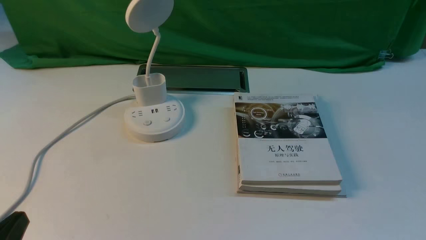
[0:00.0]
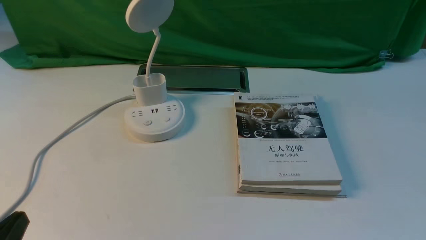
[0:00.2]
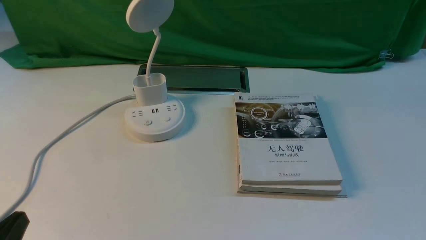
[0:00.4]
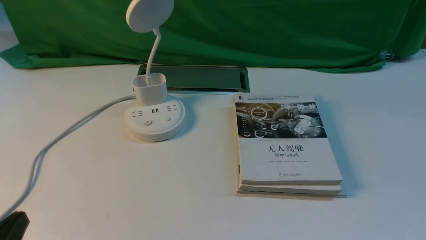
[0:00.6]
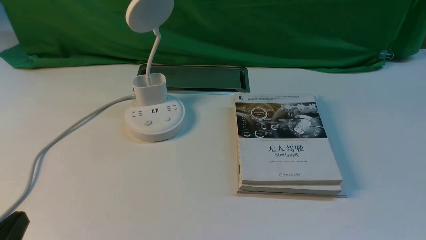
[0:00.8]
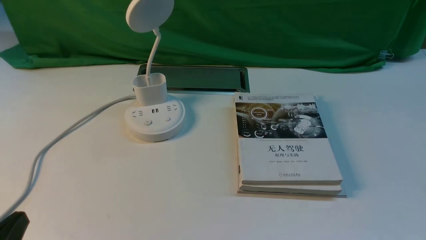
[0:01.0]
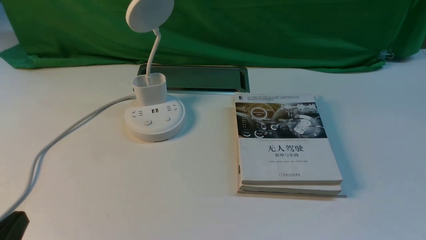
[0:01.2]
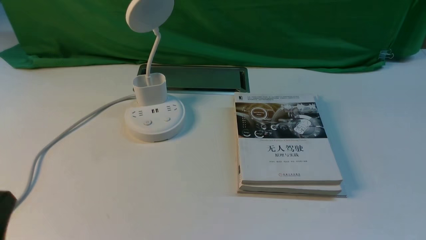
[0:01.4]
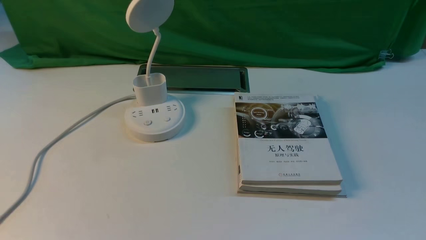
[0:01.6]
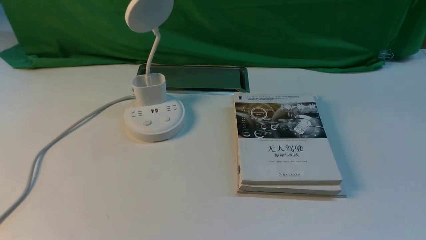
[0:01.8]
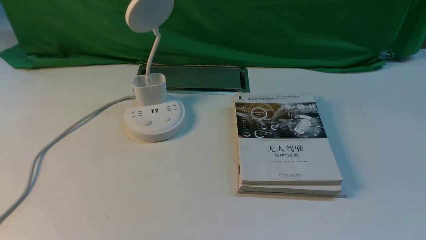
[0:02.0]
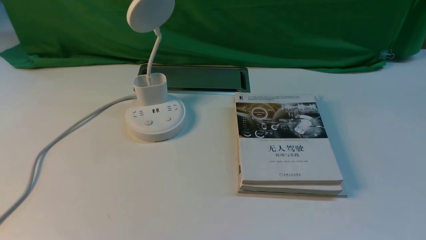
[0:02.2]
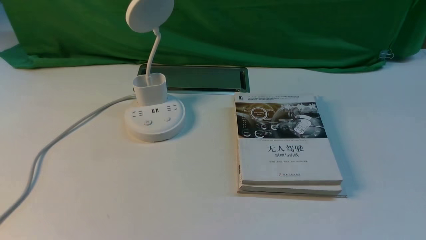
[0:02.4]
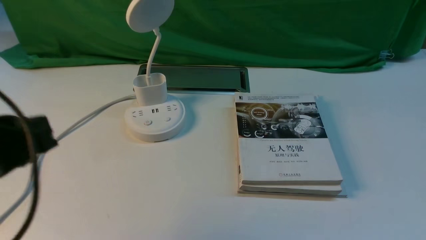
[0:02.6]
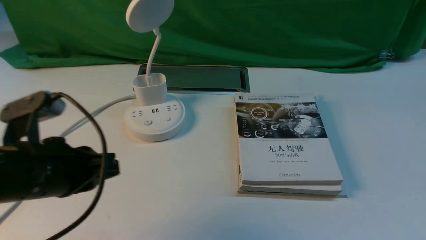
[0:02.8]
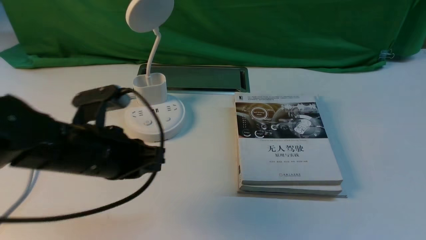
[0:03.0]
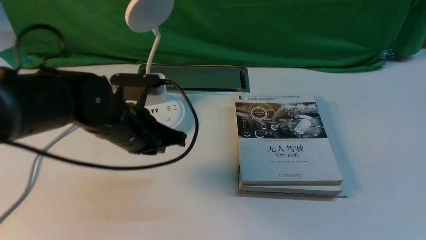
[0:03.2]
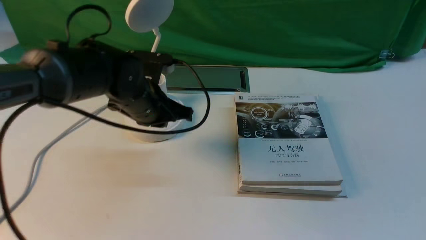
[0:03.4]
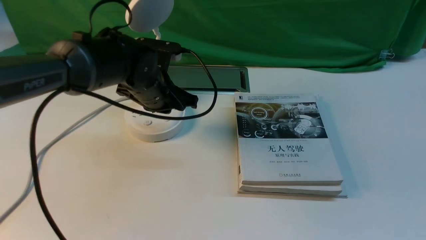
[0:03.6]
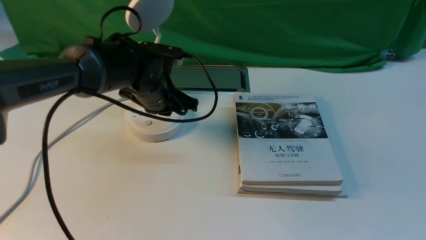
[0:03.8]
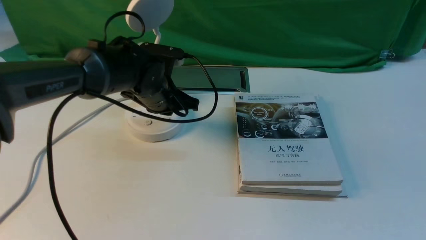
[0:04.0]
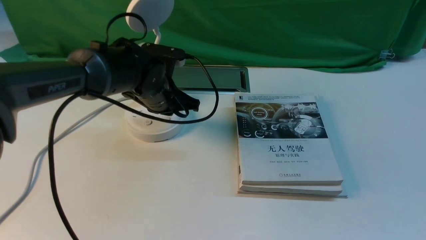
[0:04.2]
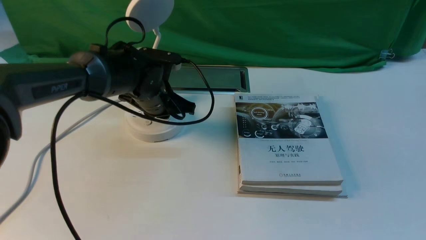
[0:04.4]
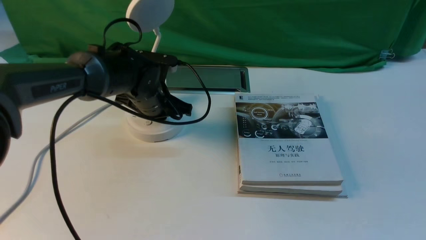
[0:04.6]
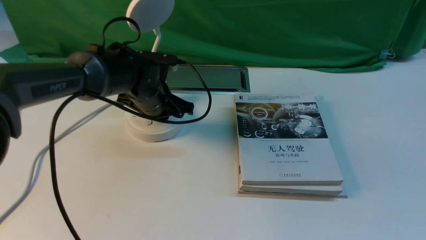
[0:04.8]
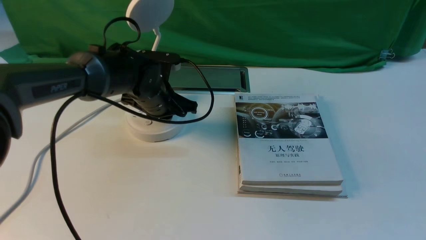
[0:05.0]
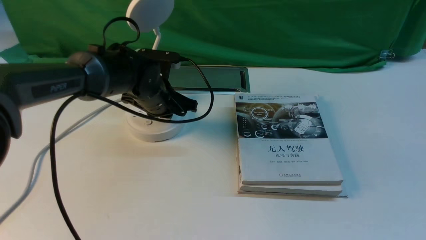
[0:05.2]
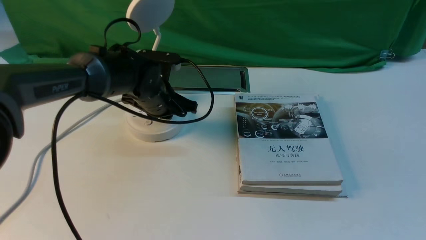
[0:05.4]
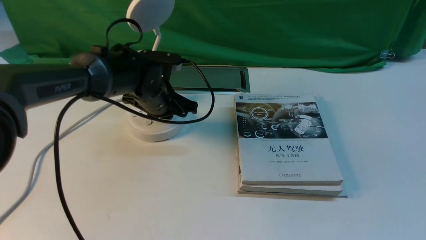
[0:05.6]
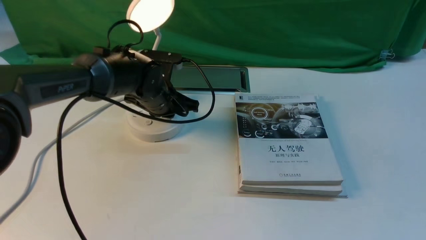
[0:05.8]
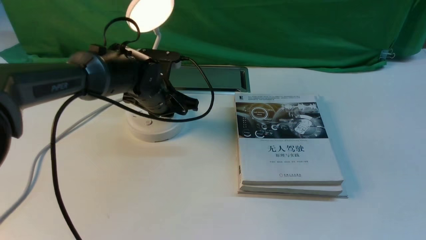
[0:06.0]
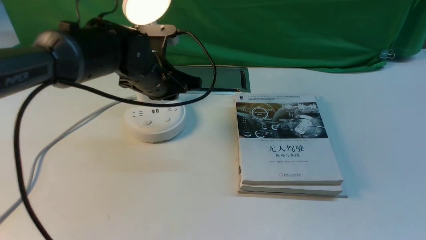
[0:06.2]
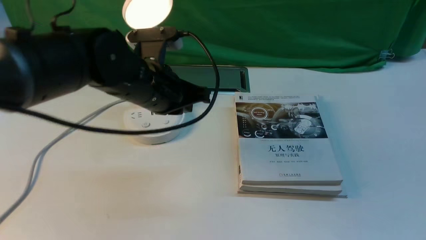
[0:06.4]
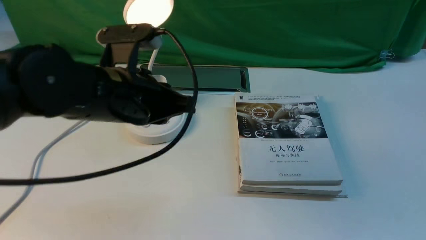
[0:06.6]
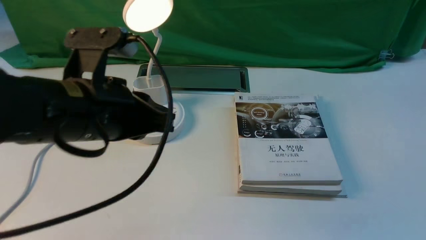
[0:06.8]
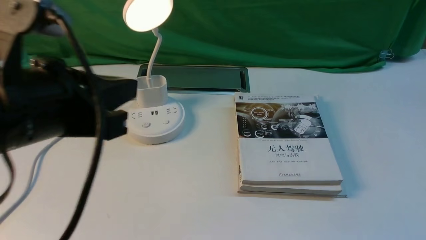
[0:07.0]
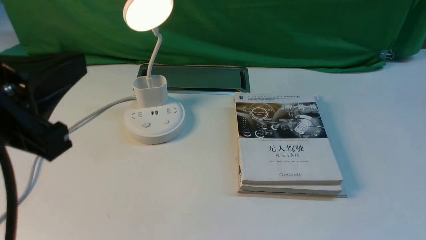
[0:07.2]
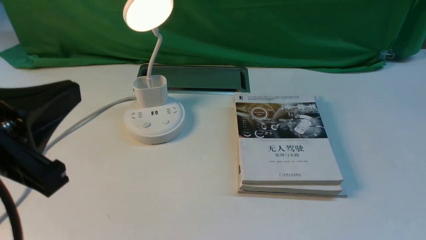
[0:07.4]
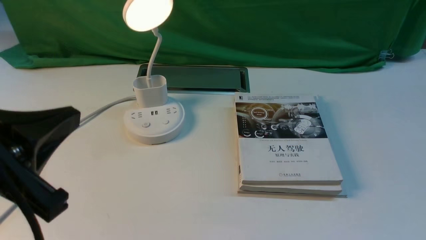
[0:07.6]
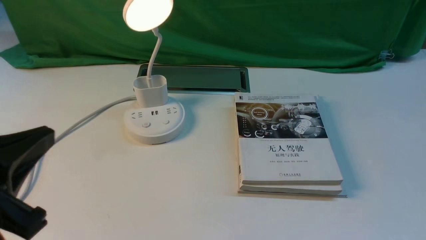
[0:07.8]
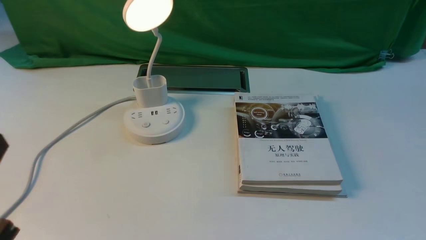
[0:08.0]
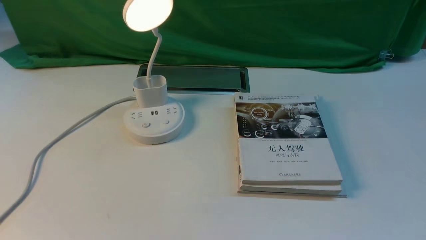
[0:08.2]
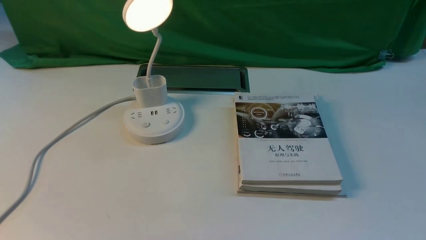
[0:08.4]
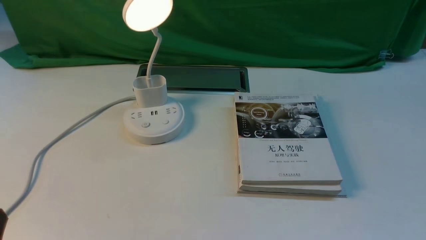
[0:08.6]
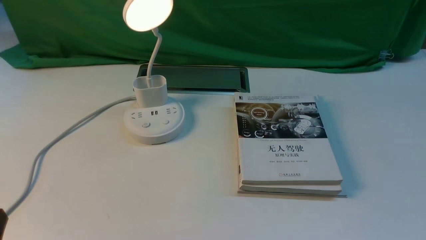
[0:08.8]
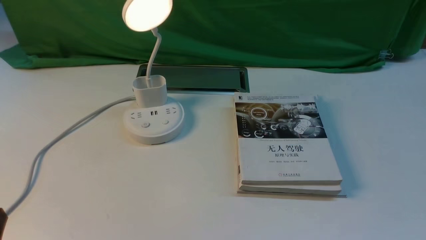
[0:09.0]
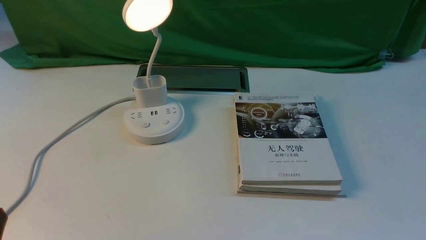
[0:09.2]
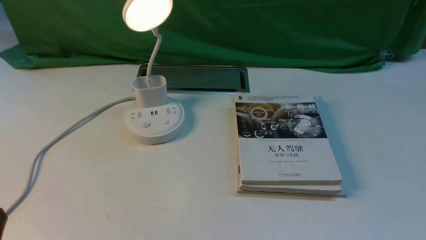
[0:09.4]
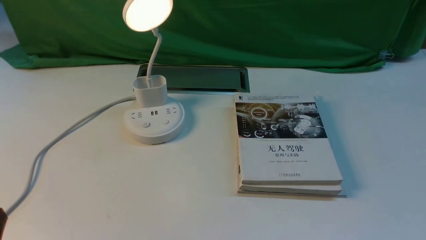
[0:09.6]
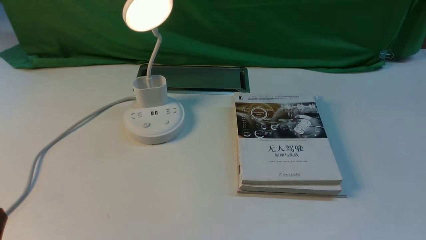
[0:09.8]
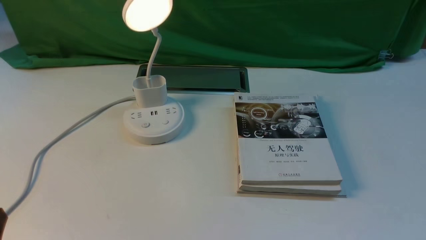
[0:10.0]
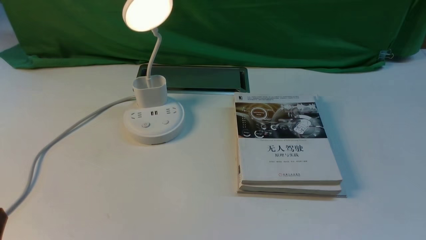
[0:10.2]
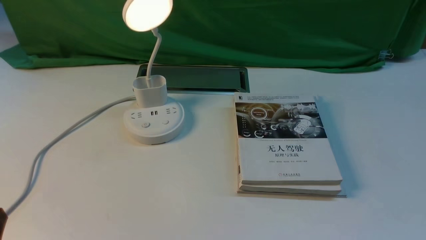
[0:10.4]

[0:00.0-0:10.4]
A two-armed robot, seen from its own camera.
Step, 0.0 to 6.4 s: use the left arm to press the button switch on the lamp holder.
1.4 to 3.0 s: The left gripper moves forward and to the right, approximately 20 cm.
3.0 to 4.4 s: The left gripper moves forward, approximately 15 cm.
4.4 to 6.0 s: The grippers move only a little.
6.0 to 7.4 s: The left gripper shifts about 35 cm backward and upward.
7.4 to 9.0 s: The left gripper goes approximately 15 cm downward.
9.0 to 10.4 s: Both grippers stay about where they are.

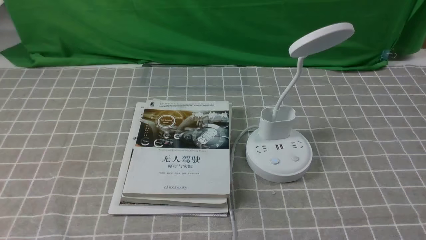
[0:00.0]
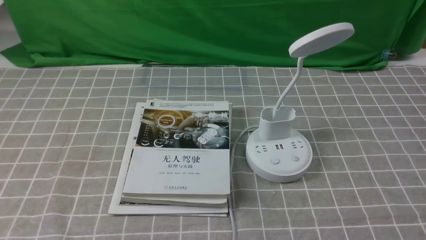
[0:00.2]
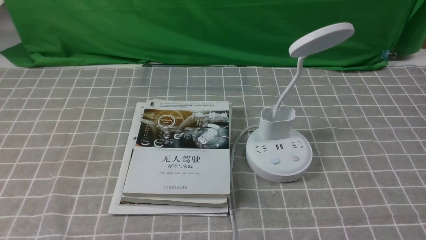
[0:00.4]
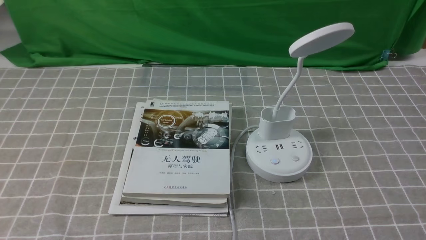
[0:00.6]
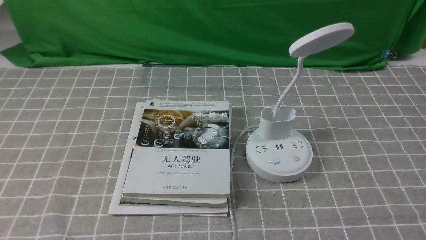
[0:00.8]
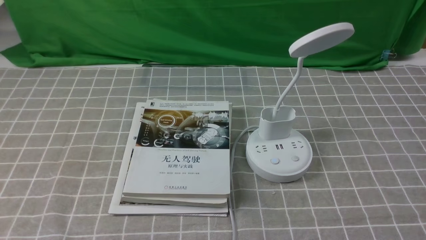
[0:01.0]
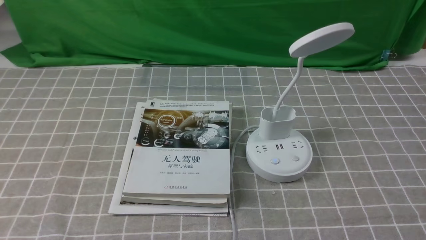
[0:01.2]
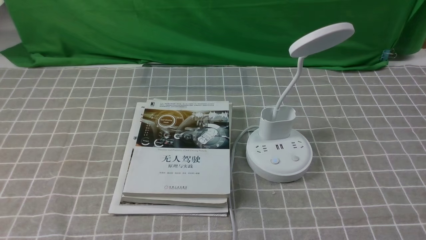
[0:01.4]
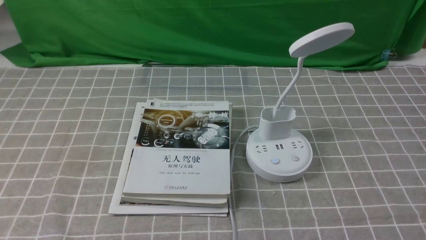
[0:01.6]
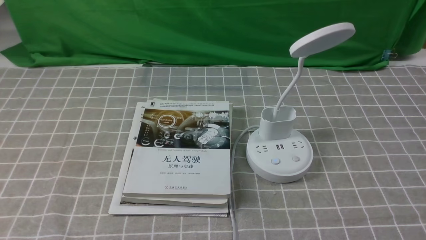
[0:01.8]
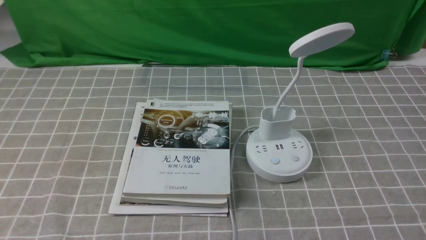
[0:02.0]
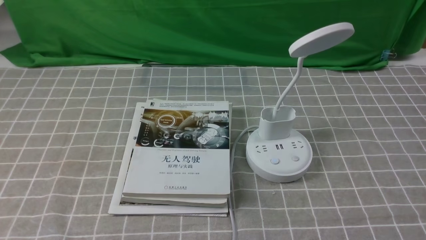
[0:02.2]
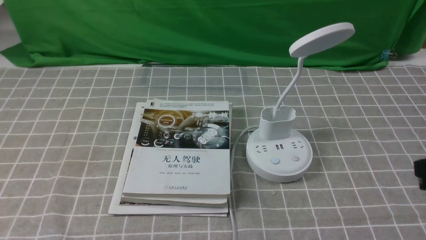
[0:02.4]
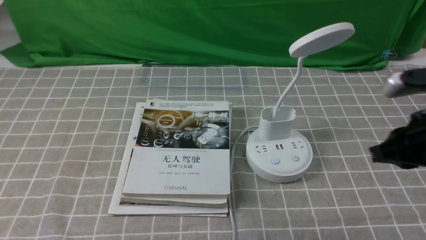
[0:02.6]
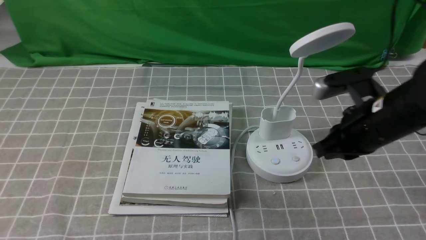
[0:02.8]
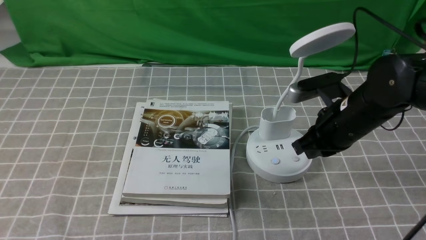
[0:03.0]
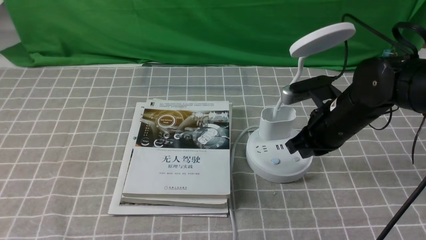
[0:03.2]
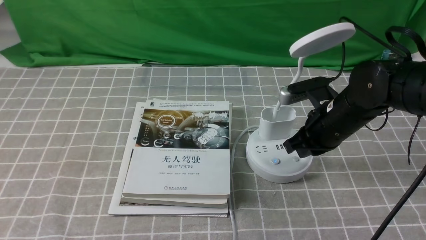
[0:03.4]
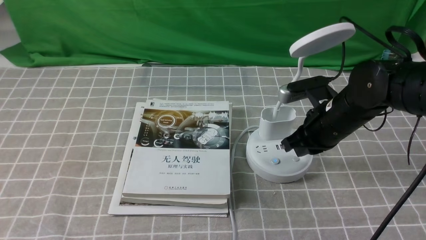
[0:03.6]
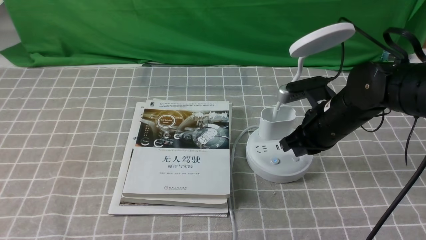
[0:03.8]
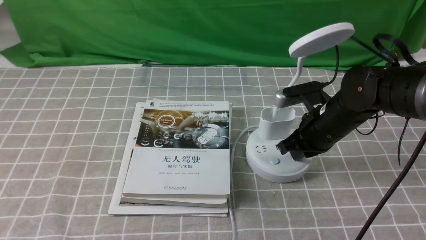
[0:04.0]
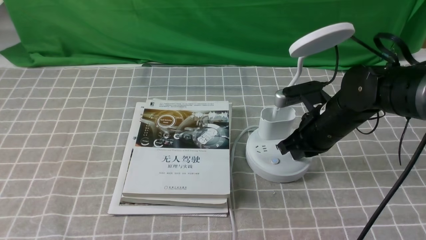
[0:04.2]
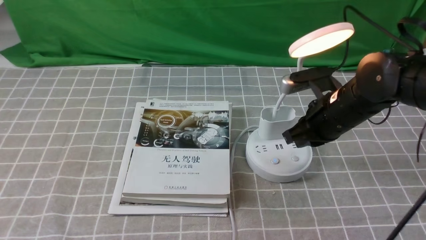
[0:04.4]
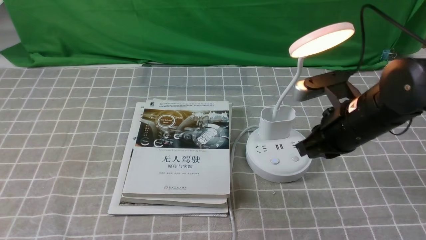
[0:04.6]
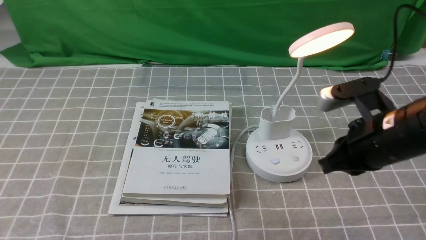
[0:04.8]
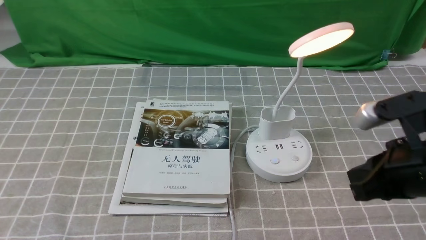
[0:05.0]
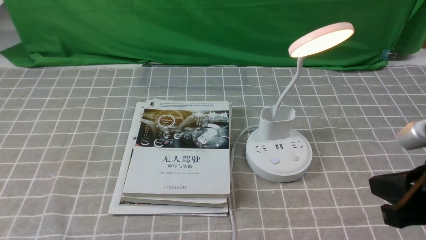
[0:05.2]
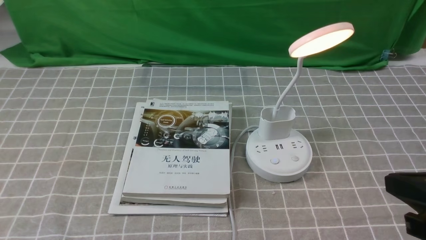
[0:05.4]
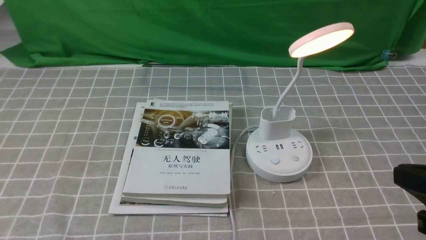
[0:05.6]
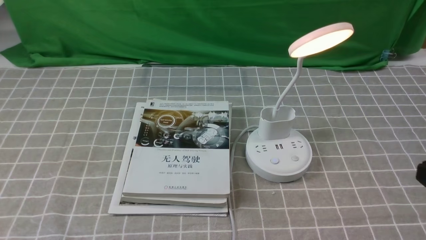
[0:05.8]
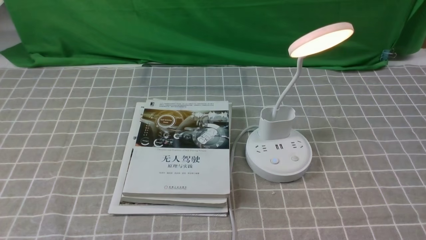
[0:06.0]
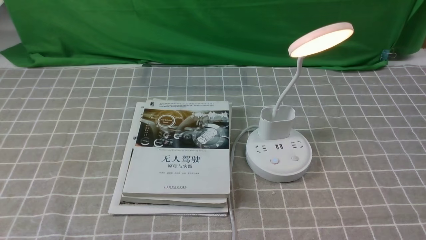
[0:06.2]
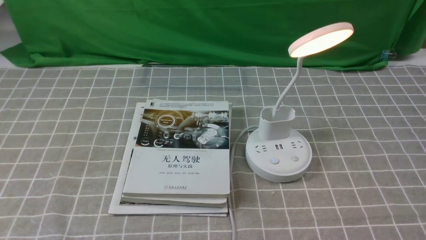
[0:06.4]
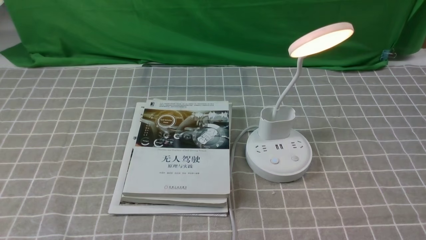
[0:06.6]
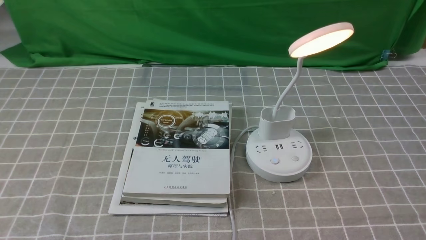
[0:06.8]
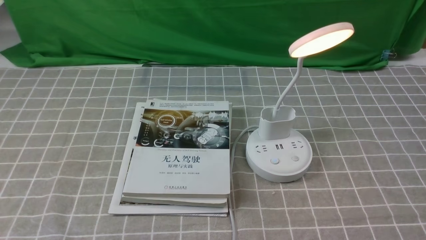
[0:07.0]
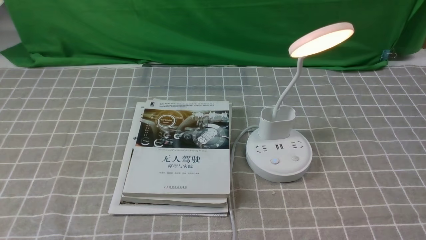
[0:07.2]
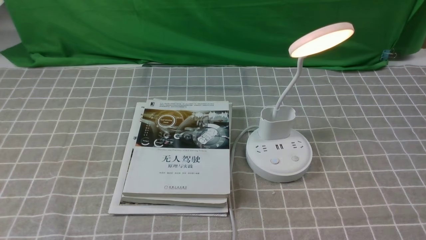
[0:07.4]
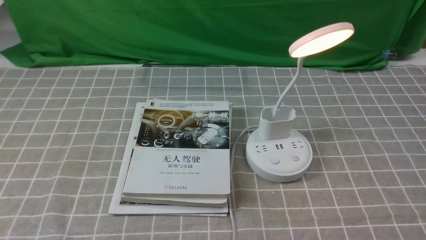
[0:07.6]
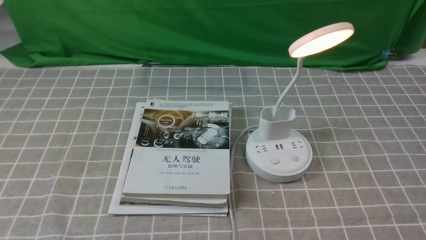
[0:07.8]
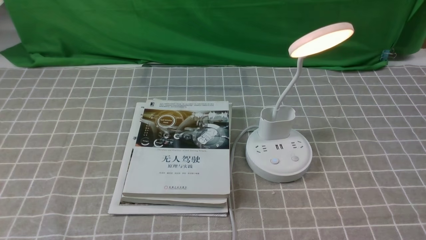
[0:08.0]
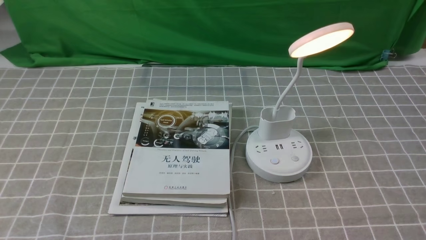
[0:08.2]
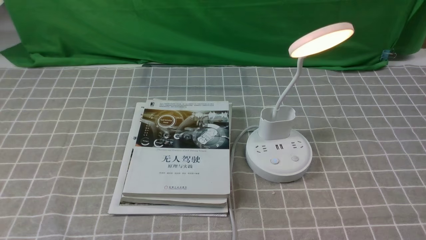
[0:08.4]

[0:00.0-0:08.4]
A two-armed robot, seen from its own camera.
Step, 0.0 to 4.4 s: use the right arm to press the button switch on the lamp holder.
1.4 to 2.8 s: The right gripper moves forward and to the left, about 25 cm, and closes its fingers.
2.8 to 4.2 s: The right gripper heads downward and forward, covering some 10 cm.
4.2 to 5.6 s: The right gripper heads backward, upward and to the right, covering about 25 cm.
5.6 to 7.0 s: The right gripper is displaced downward and backward by approximately 10 cm.
